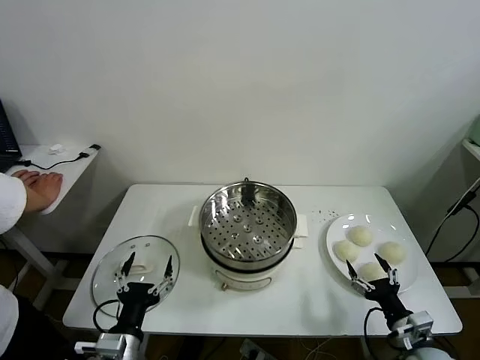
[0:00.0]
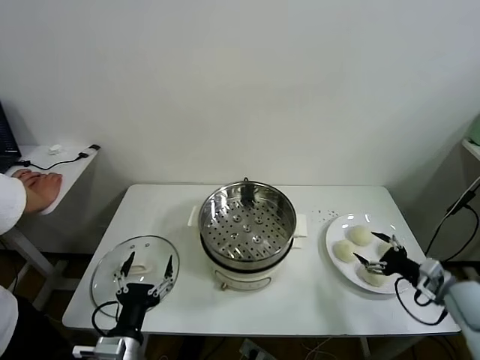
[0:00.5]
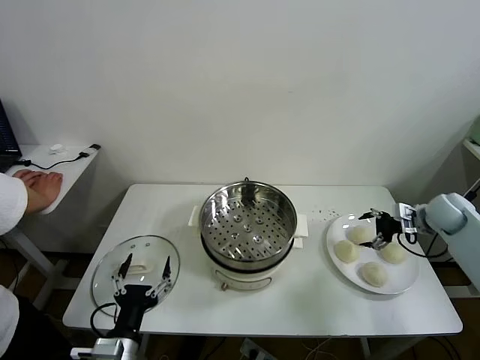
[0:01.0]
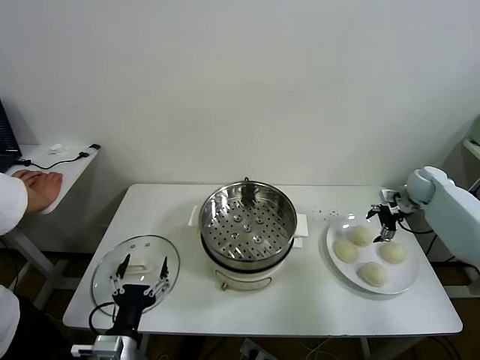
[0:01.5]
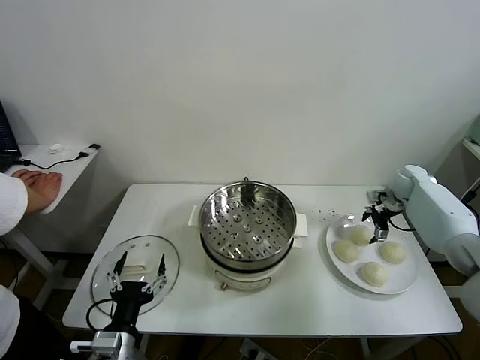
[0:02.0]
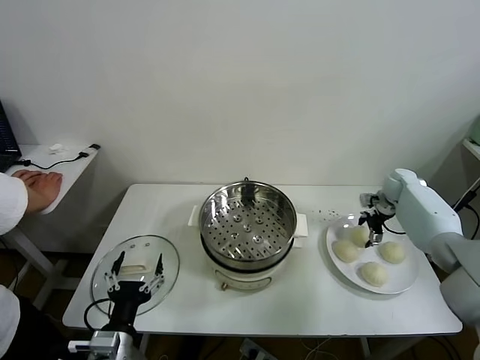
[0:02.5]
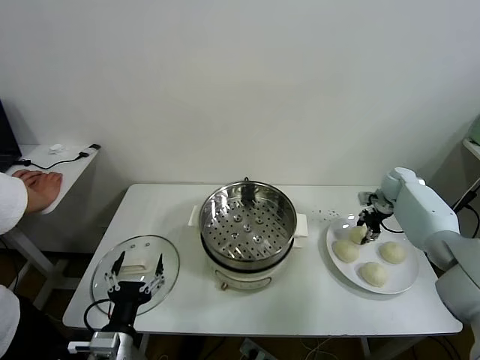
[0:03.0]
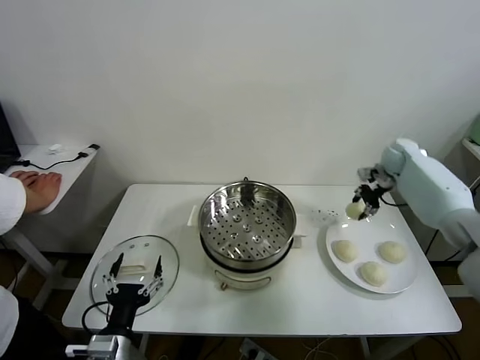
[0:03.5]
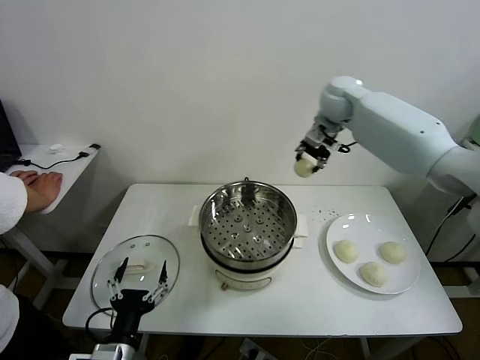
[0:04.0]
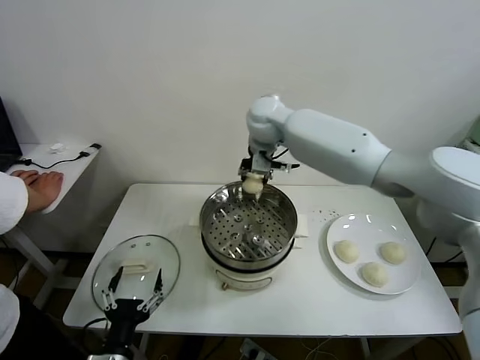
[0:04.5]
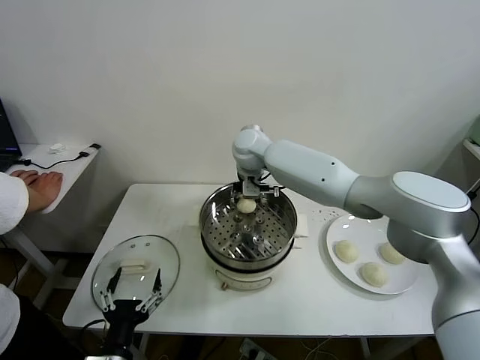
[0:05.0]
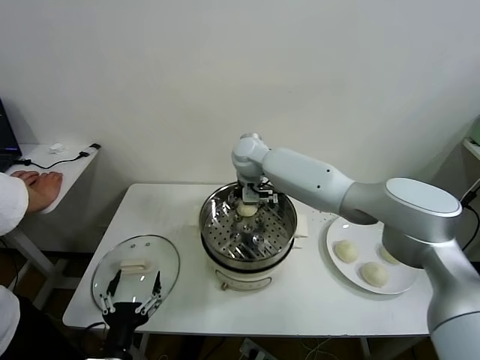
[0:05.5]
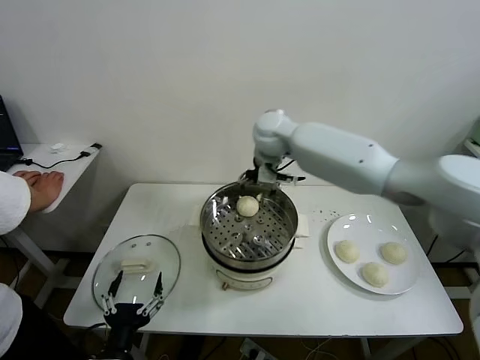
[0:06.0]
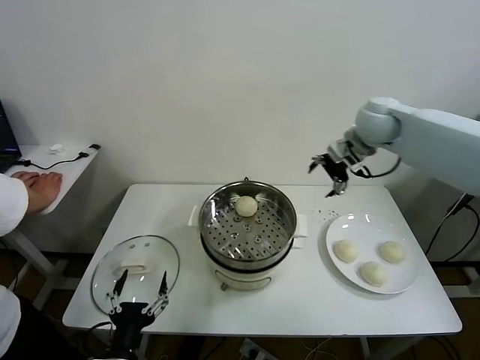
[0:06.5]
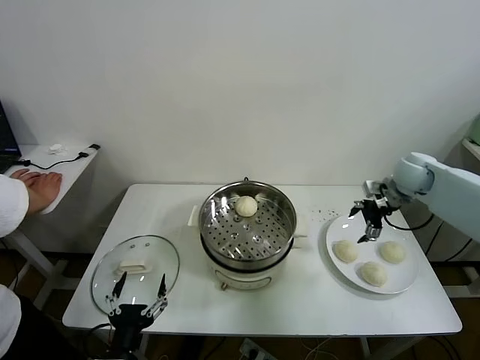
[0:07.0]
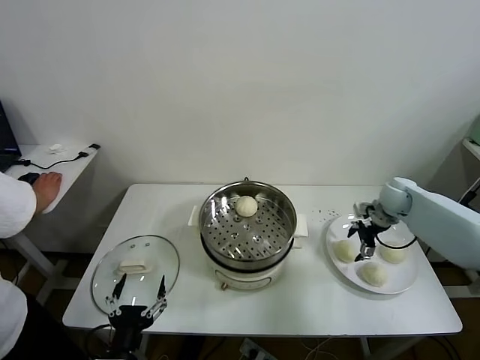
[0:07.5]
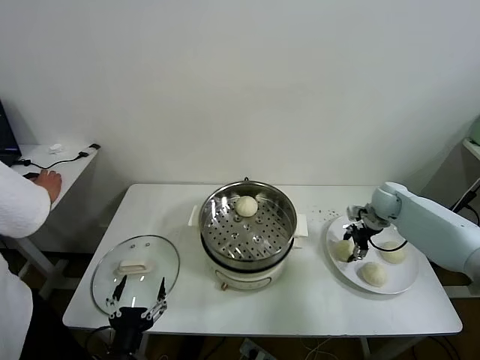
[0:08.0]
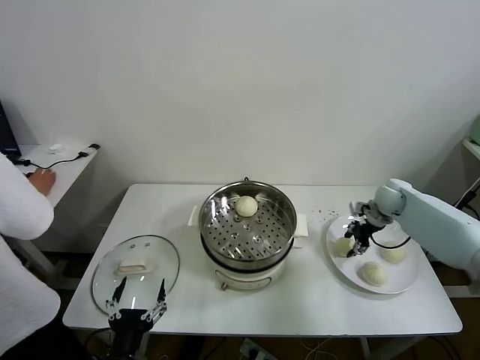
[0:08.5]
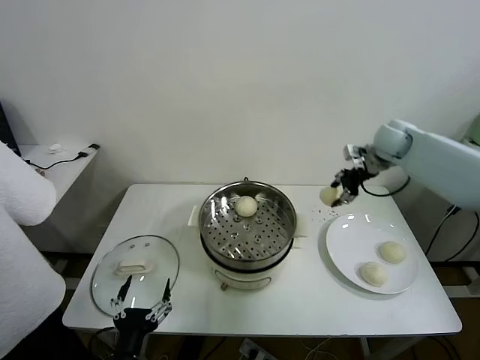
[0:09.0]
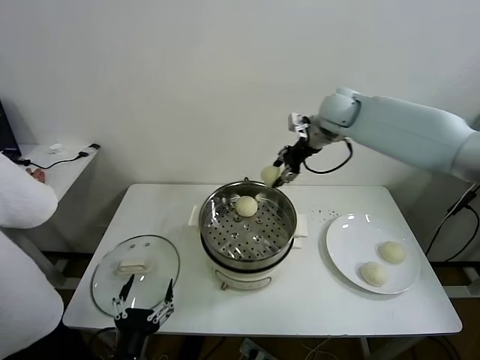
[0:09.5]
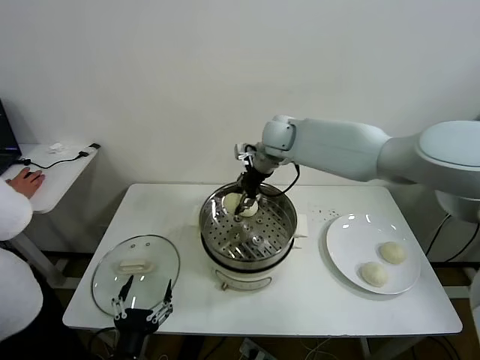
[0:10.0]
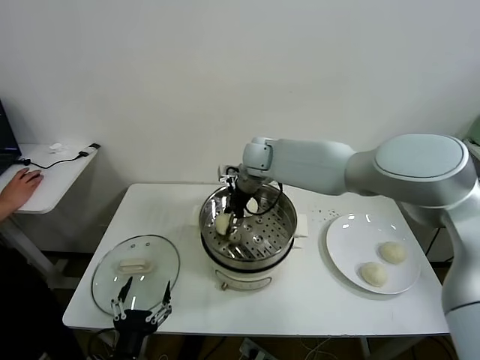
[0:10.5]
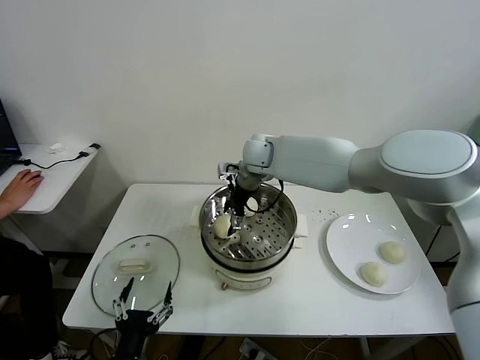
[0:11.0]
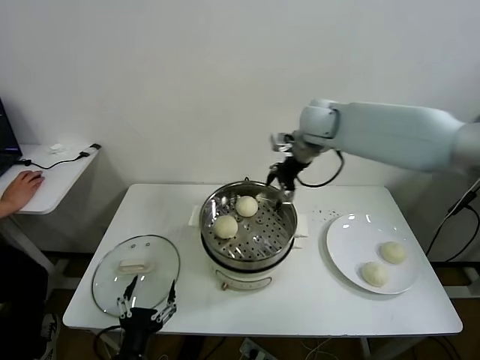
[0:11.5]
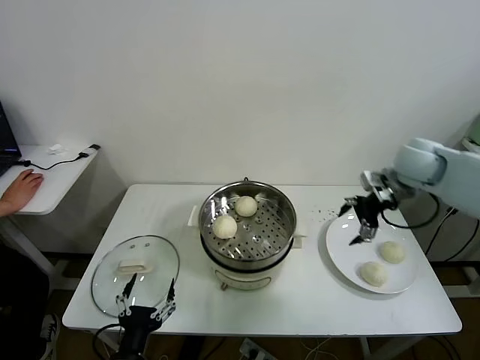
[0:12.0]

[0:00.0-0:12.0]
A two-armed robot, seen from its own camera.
Task of the whole recording: take steamed baozi put them in steamer.
Step, 0:00.0 to 0:02.5: Grasp the baozi in the plate with right gripper.
Step, 0:03.0 to 0:05.5: Place the baozi on the steamer with right gripper.
Step, 0:06.0 to 0:08.0: Grasp the baozi in the plate with right gripper.
Step, 0:08.5 to 0:10.5: Place the baozi on the steamer with right gripper.
0:02.0 to 0:04.0: The right gripper goes some 40 cm to the left and upward, and closes.
0:04.0 to 0:06.0: The right gripper travels to the left by some 5 cm, and opens.
0:06.0 to 0:08.0: The right gripper travels to the right and downward by approximately 35 cm, and closes its fingers.
0:08.0 to 0:10.0: The right gripper is displaced to the left and upward by roughly 35 cm.
0:10.0 to 0:12.0: The right gripper shifts roughly 30 cm to the right, and opens.

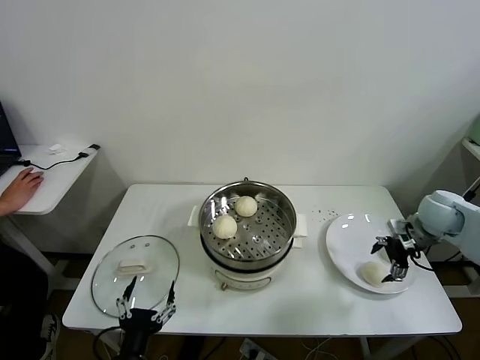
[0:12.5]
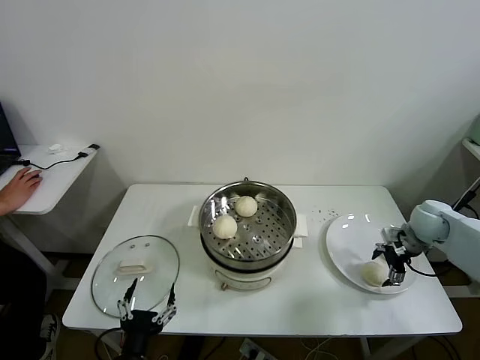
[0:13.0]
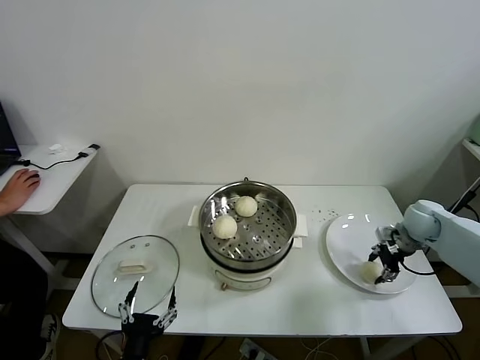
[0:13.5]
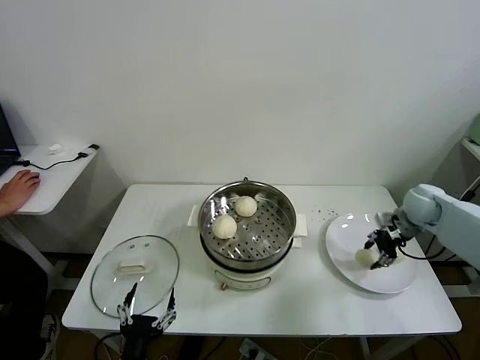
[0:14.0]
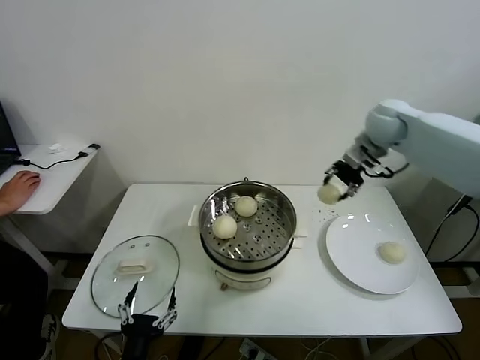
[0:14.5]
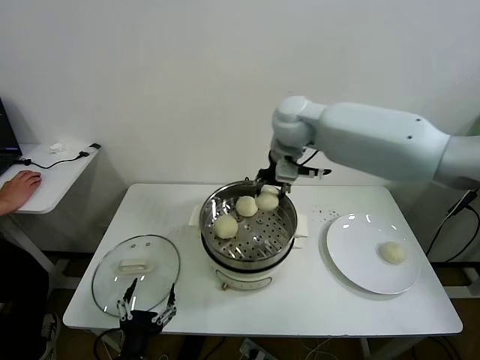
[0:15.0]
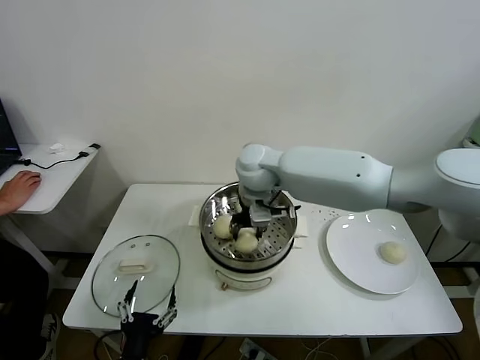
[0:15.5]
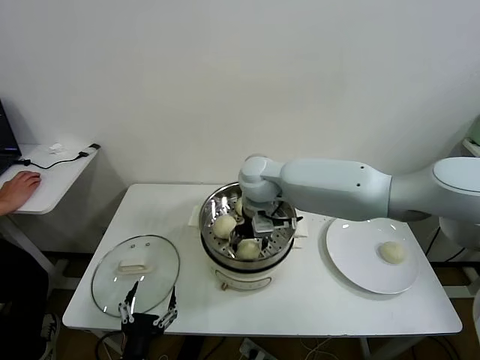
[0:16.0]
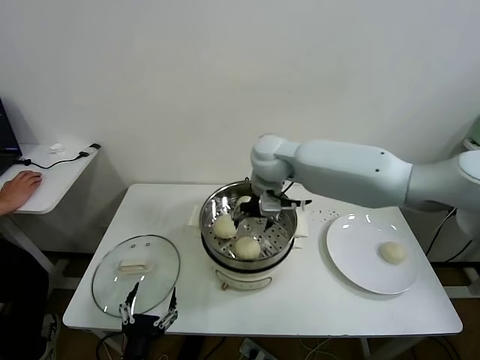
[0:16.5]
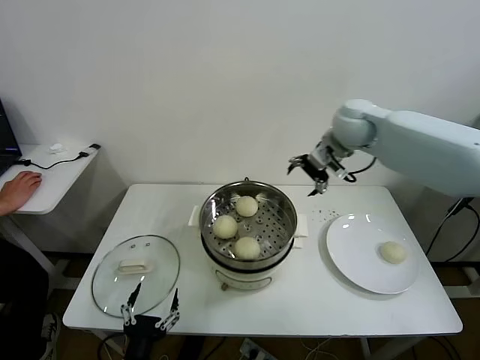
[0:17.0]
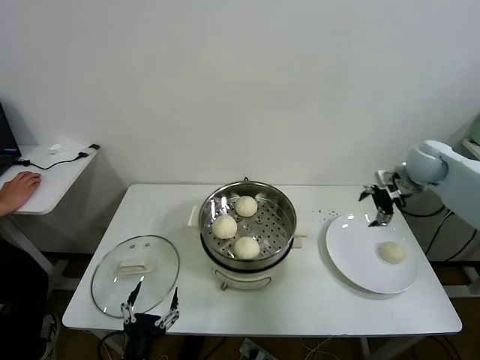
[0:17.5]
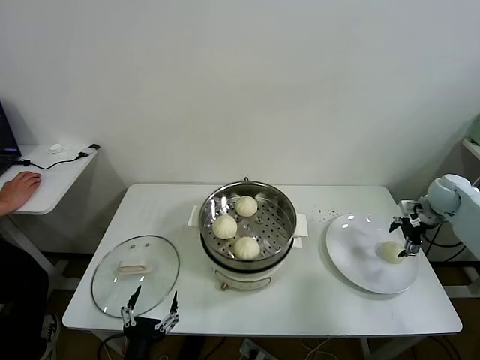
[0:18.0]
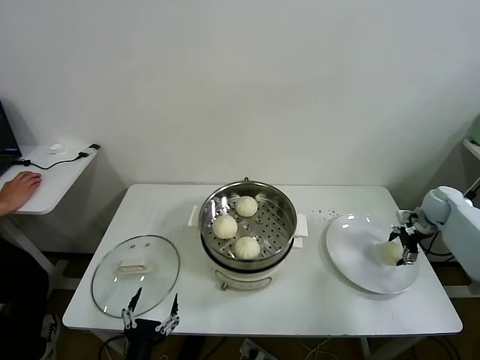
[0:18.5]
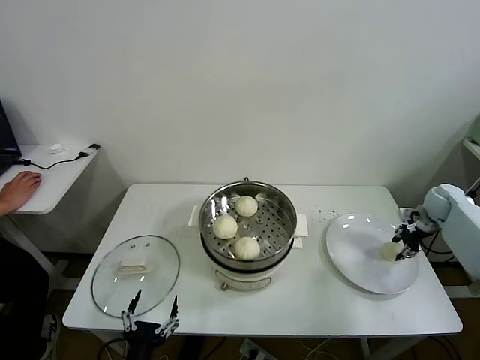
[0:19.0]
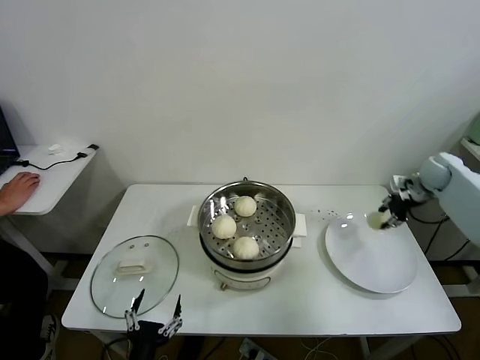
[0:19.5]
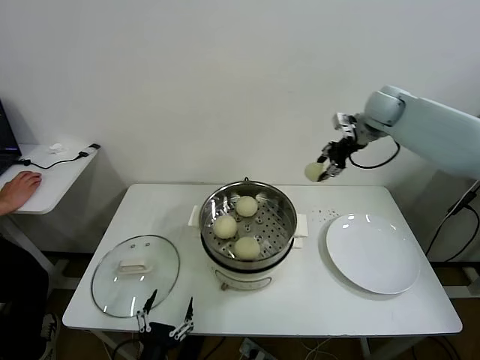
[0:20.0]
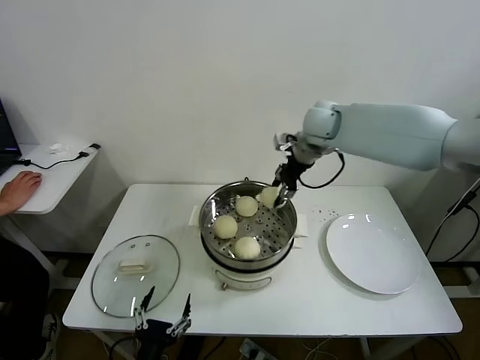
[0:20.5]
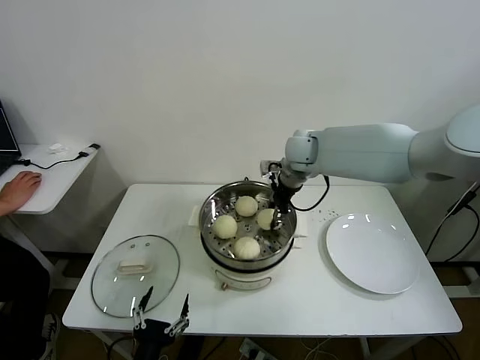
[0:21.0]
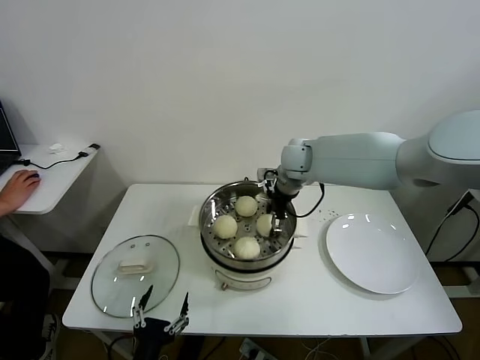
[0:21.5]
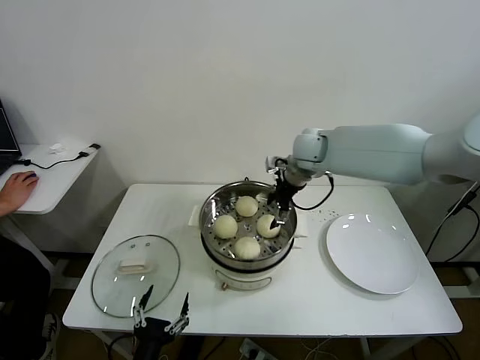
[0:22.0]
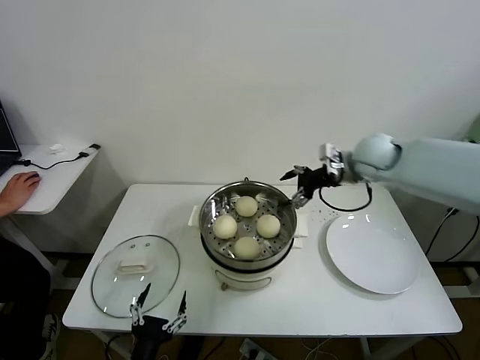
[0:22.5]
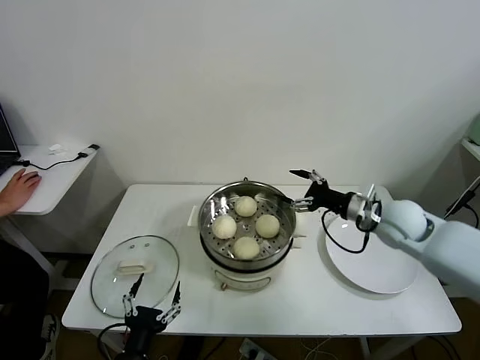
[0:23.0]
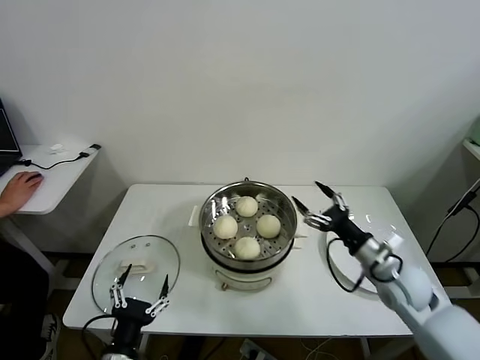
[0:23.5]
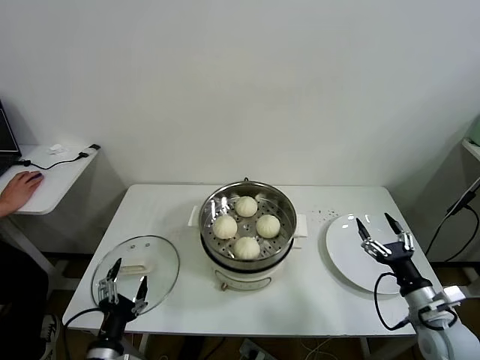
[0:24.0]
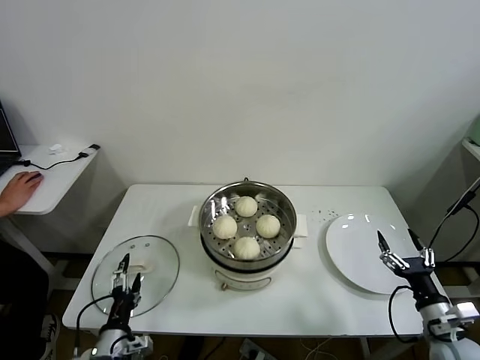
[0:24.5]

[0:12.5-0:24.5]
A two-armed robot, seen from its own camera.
Task of the whole recording: take steamed baozi put them in steamer.
Step, 0:14.0 to 0:16.0: Place the baozi on the steamer with right gripper.
Step, 0:16.5 to 0:18.5: Grasp the baozi in the plate with right gripper.
Step, 0:19.0 to 0:21.5: Place the baozi on the steamer with right gripper.
0:12.5 to 0:14.5: The right gripper heads upward, to the left and forward, covering about 30 cm, and closes up.
0:14.5 to 0:16.5: The right gripper heads to the left, covering about 20 cm, and opens.
0:16.5 to 0:18.5: The right gripper moves to the right, about 50 cm.
0:18.5 to 0:20.5: The right gripper travels to the left and upward by about 40 cm, and closes.
0:20.5 to 0:22.5: The right gripper travels to the right and backward by approximately 10 cm, and opens its fingers.
0:22.5 to 0:24.5: The left gripper is displaced forward and to the left by approximately 10 cm. Meanwhile the right gripper shifts approximately 40 cm backward, downward and to the right.

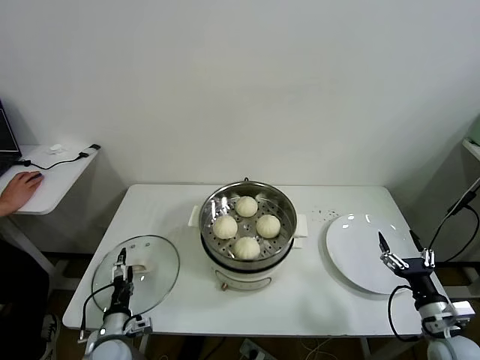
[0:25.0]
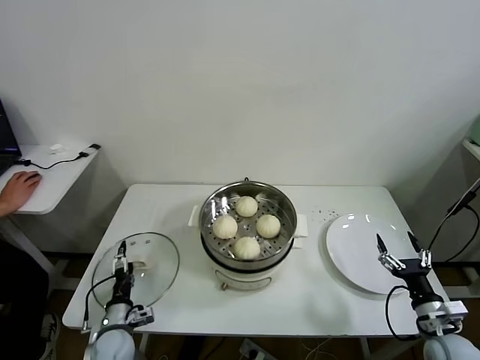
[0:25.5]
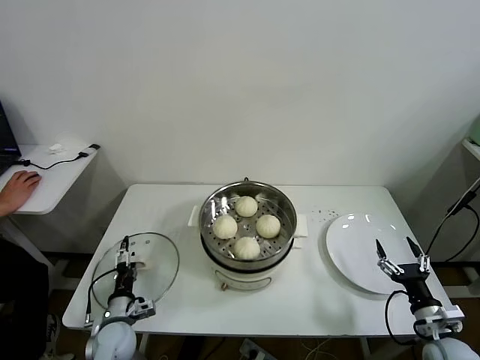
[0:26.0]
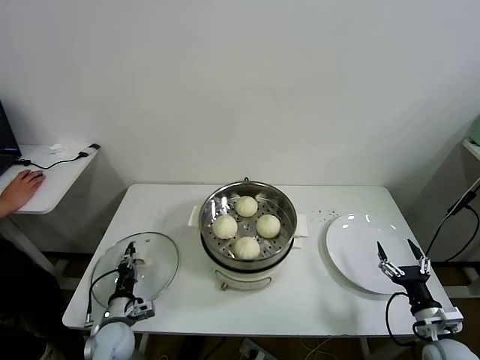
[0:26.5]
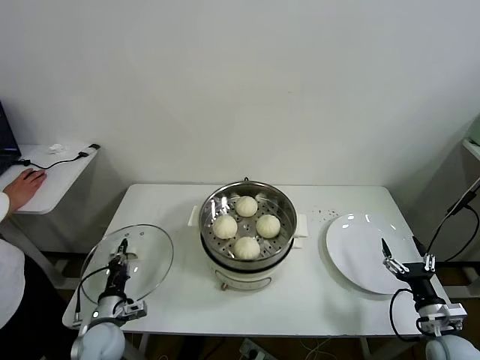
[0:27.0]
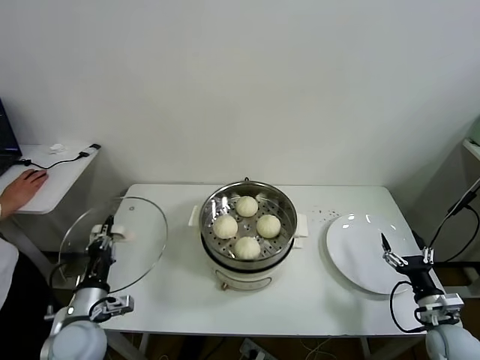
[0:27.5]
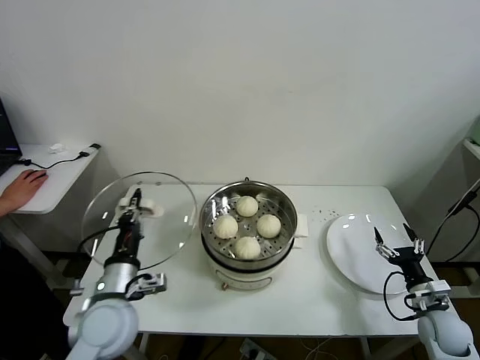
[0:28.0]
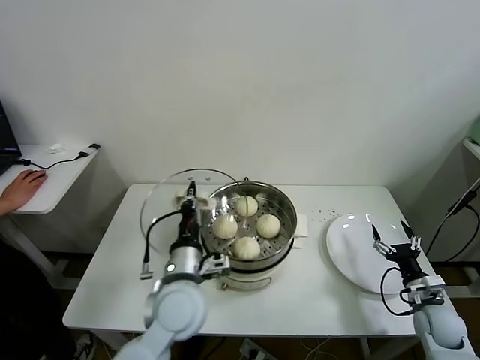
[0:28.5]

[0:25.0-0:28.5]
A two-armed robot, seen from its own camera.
Task of the whole recording: take steamed baozi put them in steamer.
0:25.0 to 0:27.0: The left gripper closes its fingers.
0:27.0 to 0:28.5: The left gripper heads upward and to the right, covering about 30 cm. Meanwhile the right gripper goes approximately 5 cm forward.
